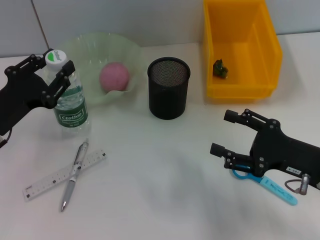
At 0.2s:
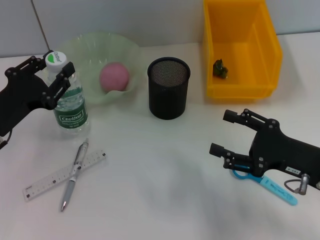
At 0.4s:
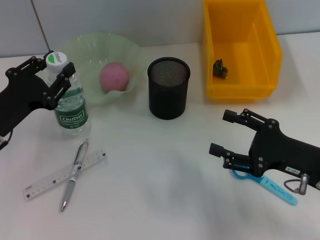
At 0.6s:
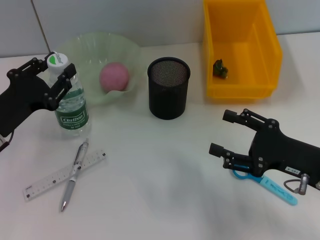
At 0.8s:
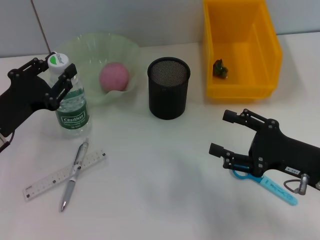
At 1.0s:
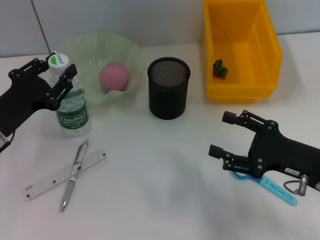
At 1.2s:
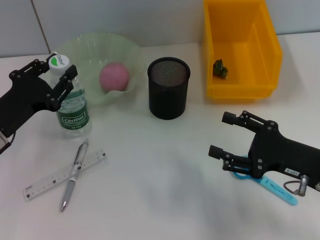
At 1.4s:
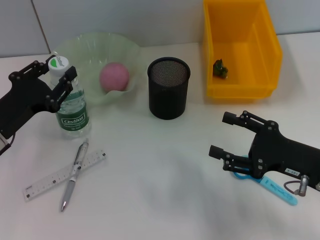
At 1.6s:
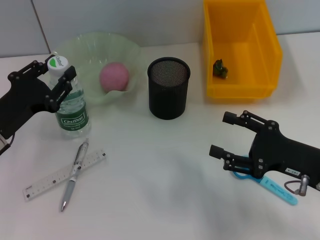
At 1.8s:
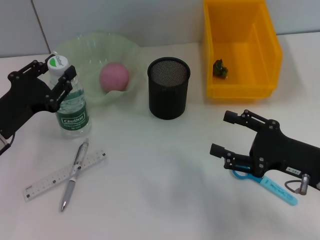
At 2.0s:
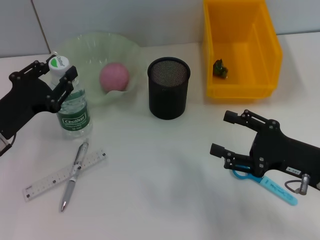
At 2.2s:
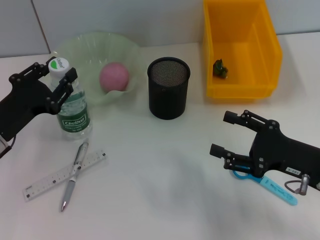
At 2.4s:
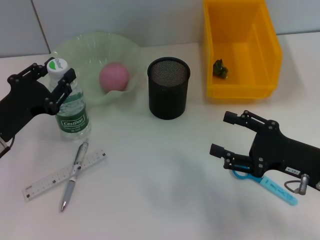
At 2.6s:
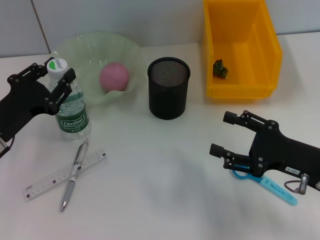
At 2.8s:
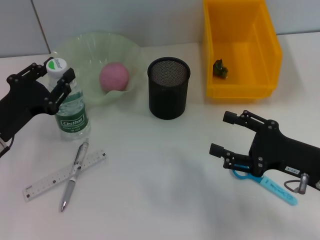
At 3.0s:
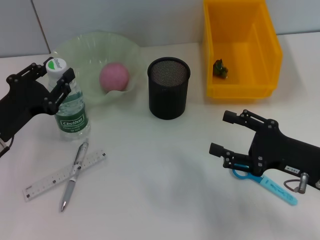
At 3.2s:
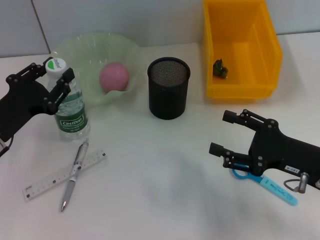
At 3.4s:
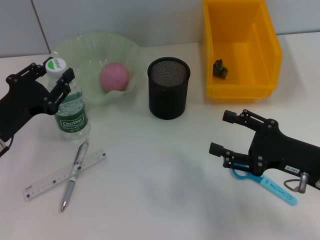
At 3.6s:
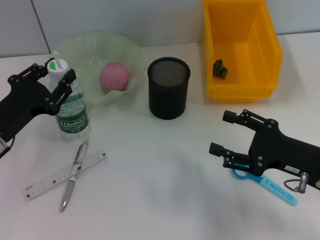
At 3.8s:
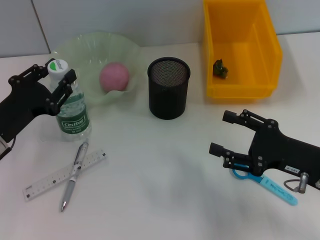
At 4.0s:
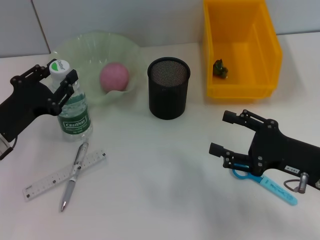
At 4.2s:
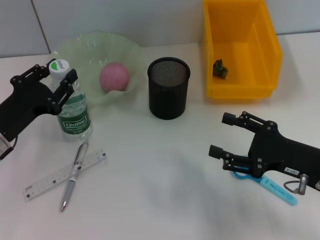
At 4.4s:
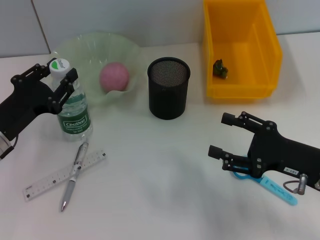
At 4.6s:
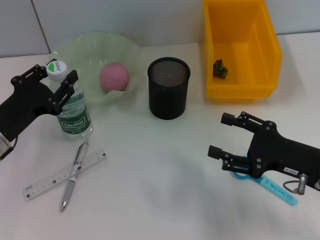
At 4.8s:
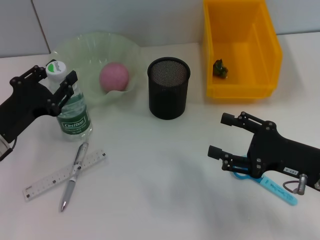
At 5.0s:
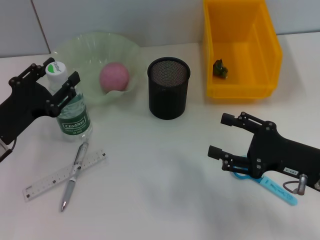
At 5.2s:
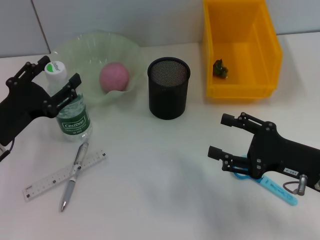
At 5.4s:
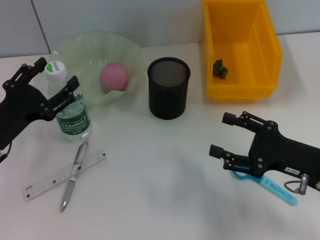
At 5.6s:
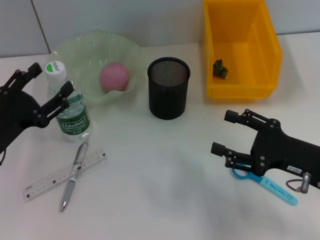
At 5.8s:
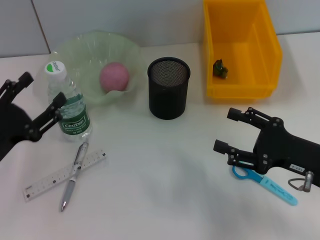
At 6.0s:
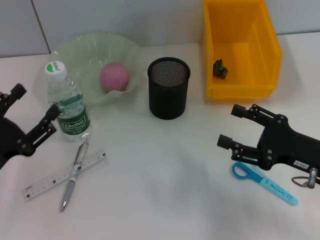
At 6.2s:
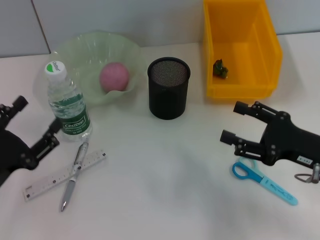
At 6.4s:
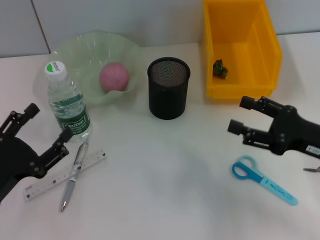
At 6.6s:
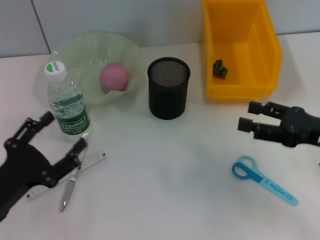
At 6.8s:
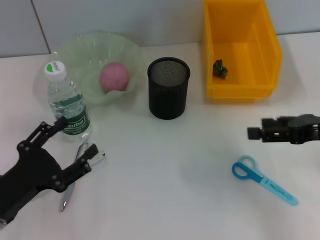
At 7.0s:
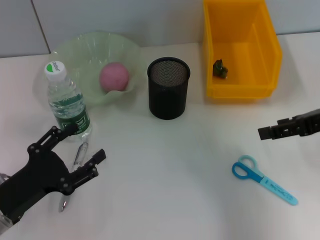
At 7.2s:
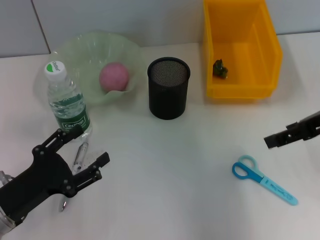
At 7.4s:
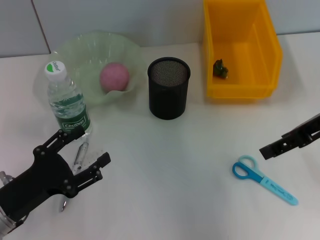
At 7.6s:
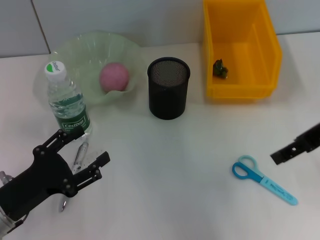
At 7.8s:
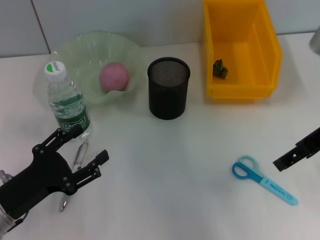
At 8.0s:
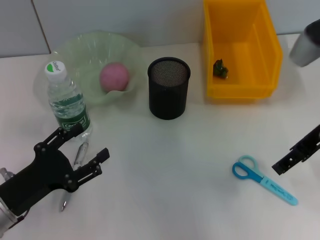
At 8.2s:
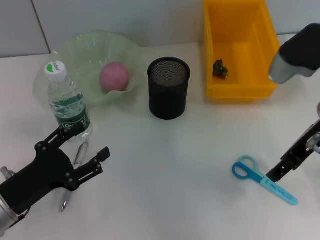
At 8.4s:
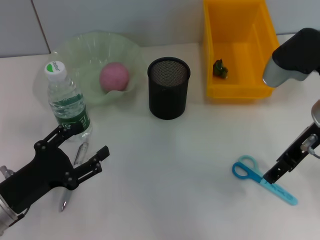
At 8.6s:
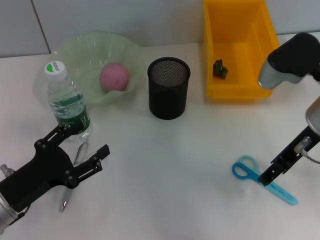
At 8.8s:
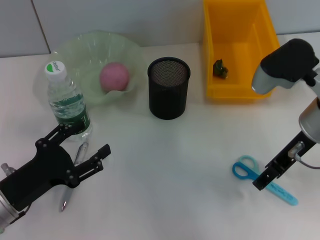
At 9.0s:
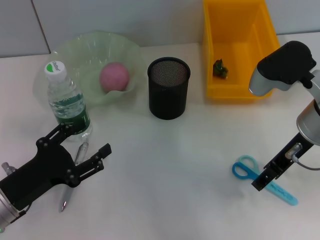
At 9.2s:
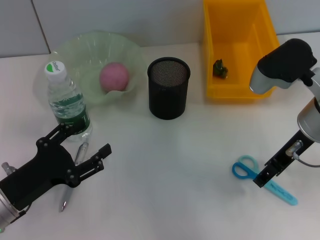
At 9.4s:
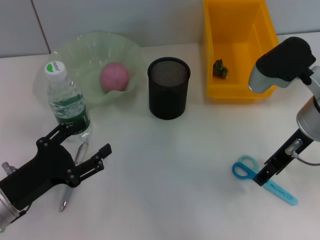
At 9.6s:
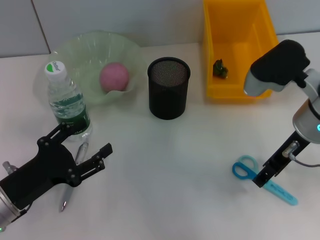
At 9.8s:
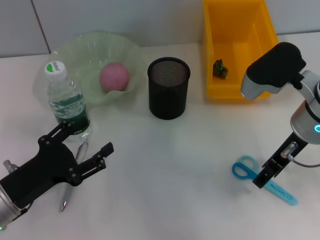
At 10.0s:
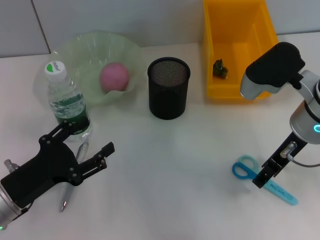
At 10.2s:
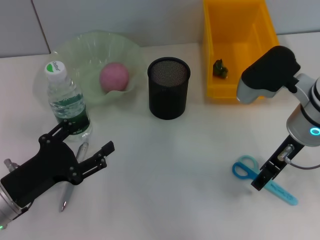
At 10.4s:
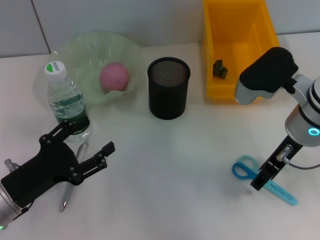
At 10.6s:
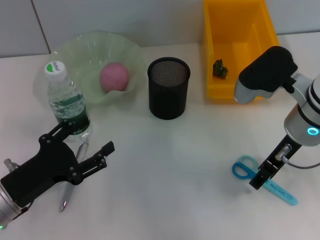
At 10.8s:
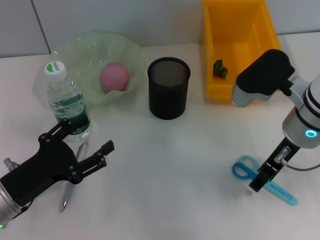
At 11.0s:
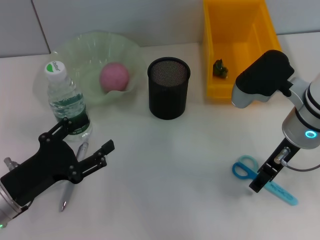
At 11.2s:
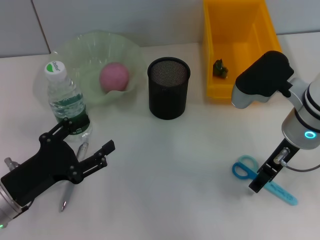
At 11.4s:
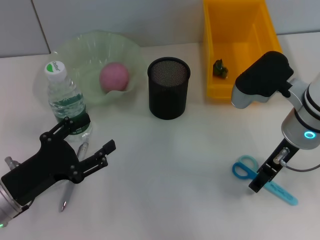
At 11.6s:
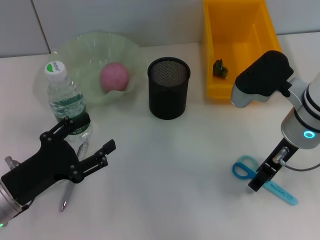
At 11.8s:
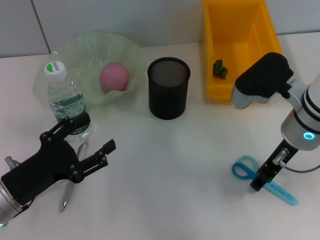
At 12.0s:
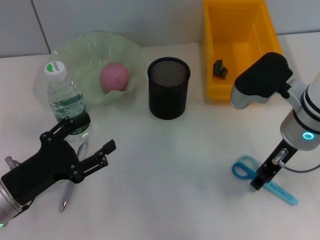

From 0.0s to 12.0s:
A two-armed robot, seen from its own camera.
Step, from 0.0s to 5.4s: Place the water bottle on the table with the left hand.
From 0.0s to 3.0s: The two grippers keep their place.
From 3.0s to 4.4s: Both grippers stay put.
From 4.4s to 6.0s: The left gripper travels backward by approximately 10 cm, and opens its fingers.
From 6.0s to 7.6s: The right gripper shifts approximately 15 cm upward.
From 7.6s to 9.0s: The right gripper goes approximately 10 cm downward and to the left.
From 9.0s to 10.4s: The grippers make only small movements.
From 10.4s to 12.0s: Both grippers stay about where they are.

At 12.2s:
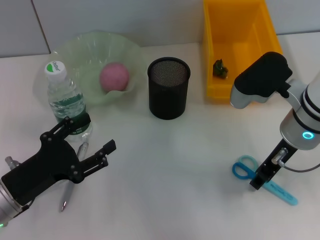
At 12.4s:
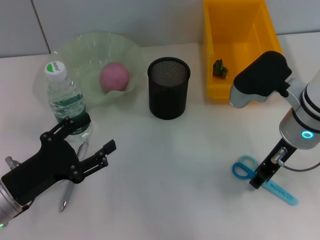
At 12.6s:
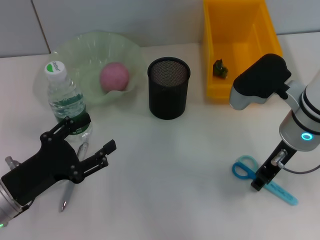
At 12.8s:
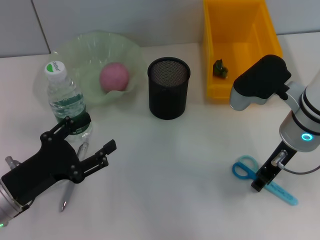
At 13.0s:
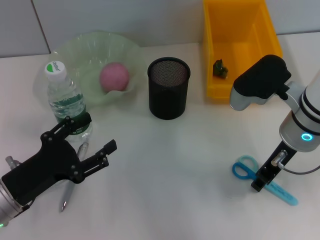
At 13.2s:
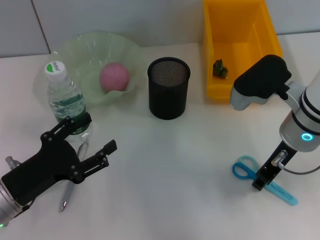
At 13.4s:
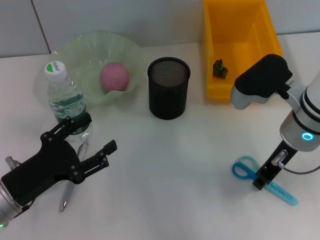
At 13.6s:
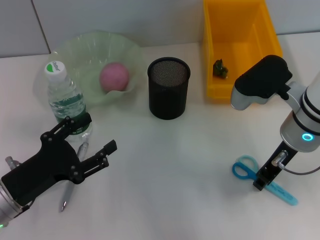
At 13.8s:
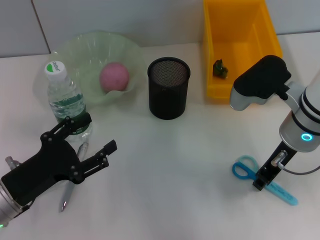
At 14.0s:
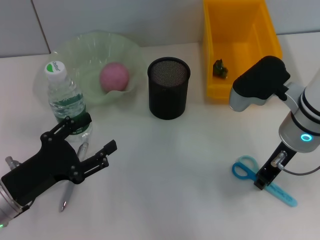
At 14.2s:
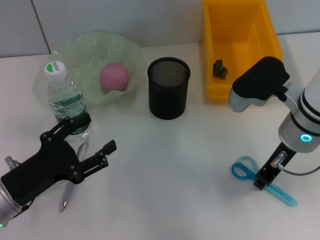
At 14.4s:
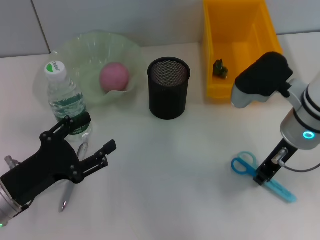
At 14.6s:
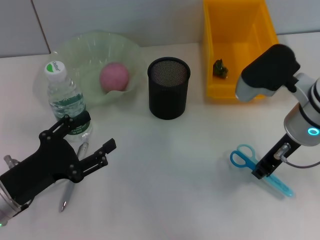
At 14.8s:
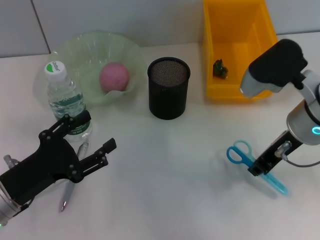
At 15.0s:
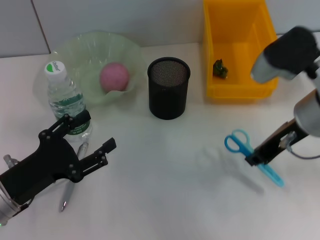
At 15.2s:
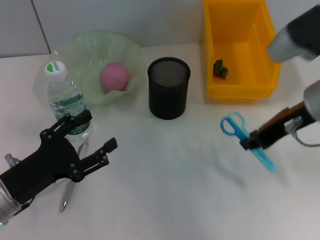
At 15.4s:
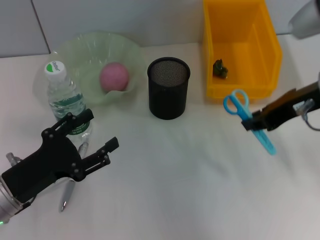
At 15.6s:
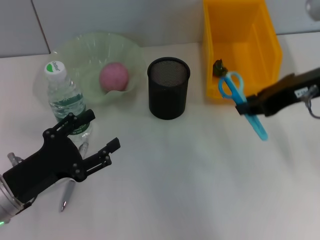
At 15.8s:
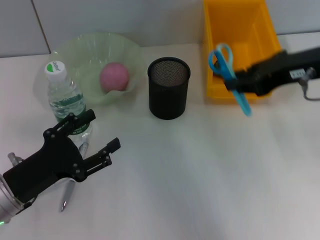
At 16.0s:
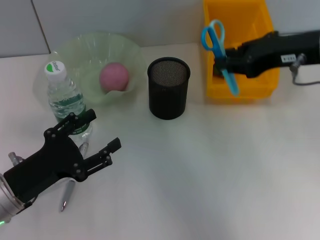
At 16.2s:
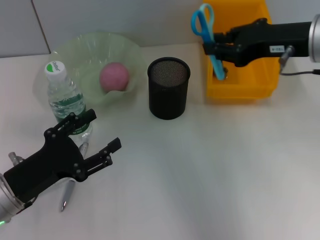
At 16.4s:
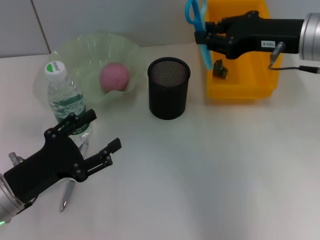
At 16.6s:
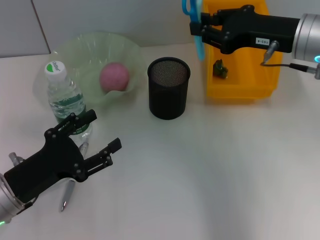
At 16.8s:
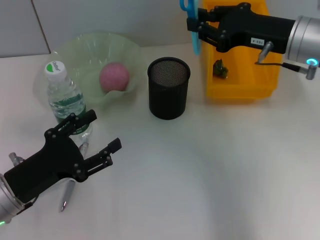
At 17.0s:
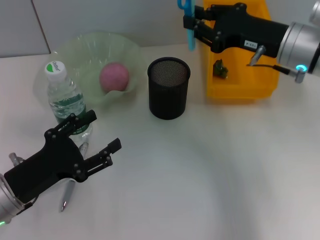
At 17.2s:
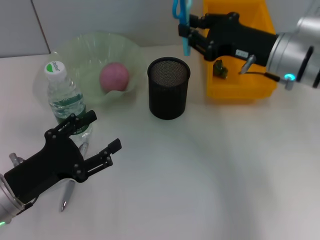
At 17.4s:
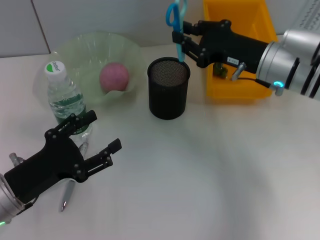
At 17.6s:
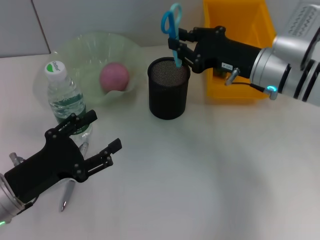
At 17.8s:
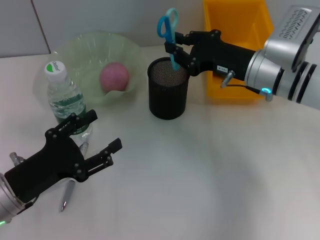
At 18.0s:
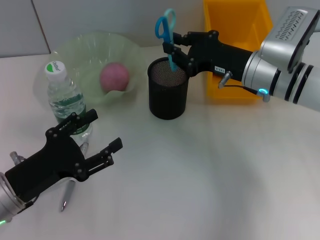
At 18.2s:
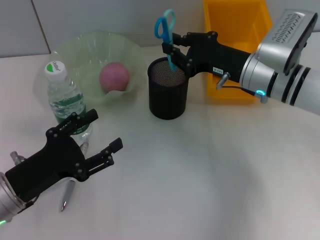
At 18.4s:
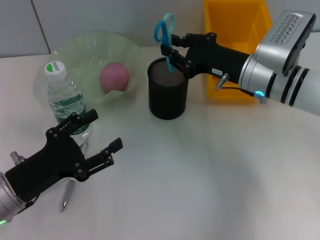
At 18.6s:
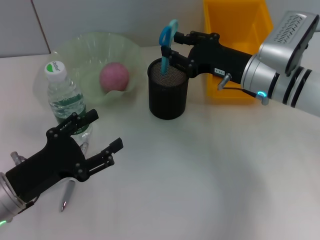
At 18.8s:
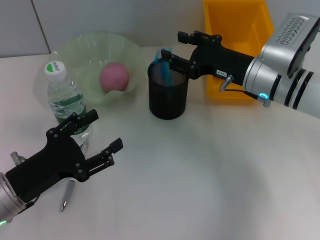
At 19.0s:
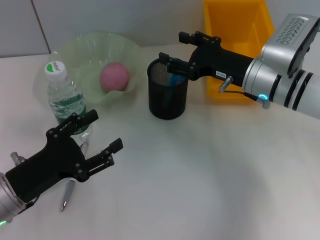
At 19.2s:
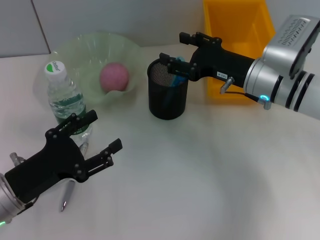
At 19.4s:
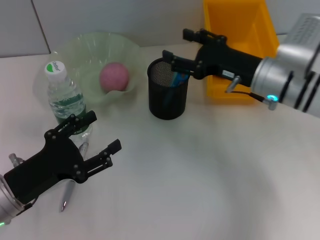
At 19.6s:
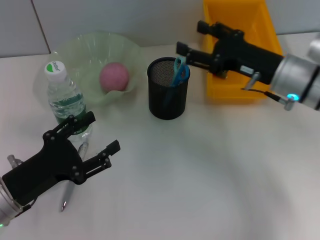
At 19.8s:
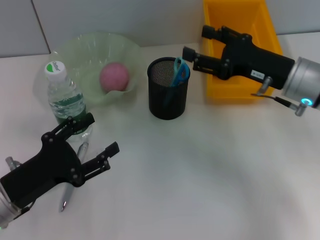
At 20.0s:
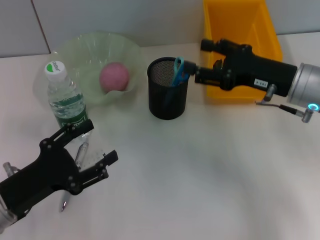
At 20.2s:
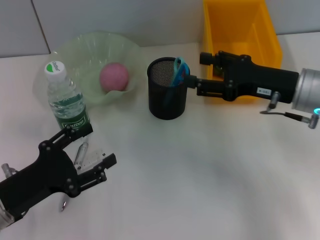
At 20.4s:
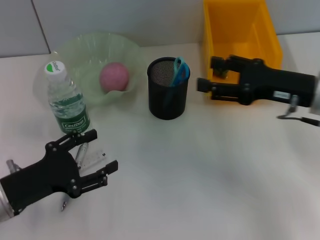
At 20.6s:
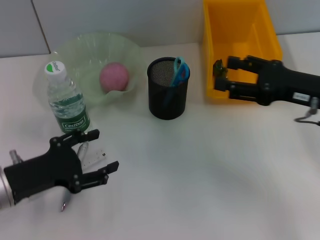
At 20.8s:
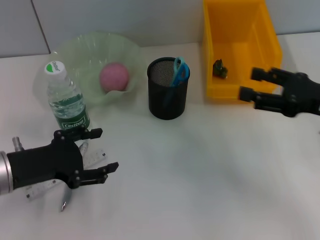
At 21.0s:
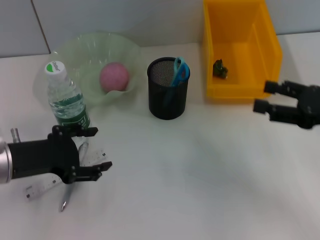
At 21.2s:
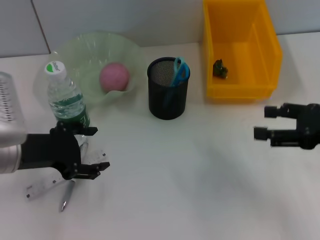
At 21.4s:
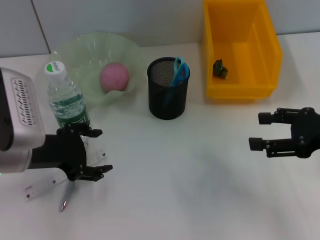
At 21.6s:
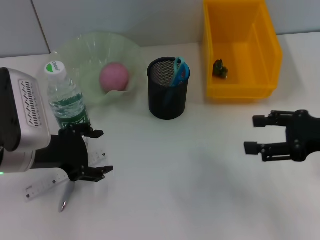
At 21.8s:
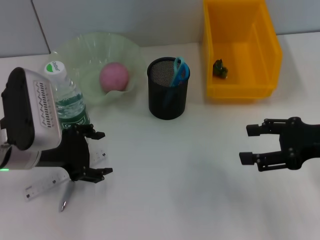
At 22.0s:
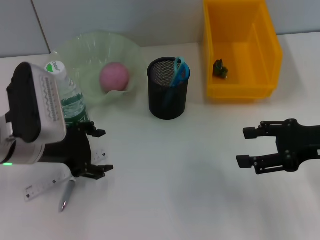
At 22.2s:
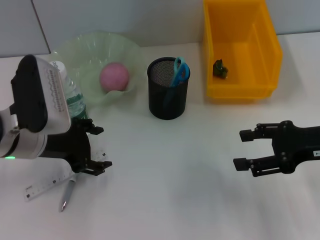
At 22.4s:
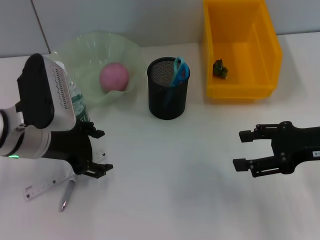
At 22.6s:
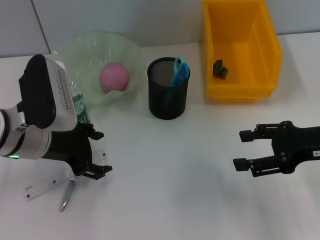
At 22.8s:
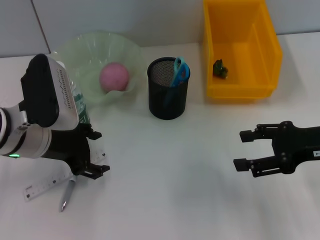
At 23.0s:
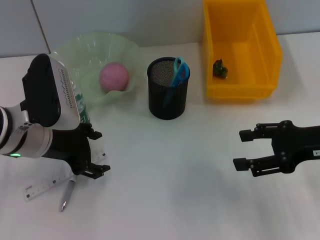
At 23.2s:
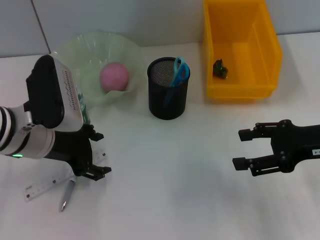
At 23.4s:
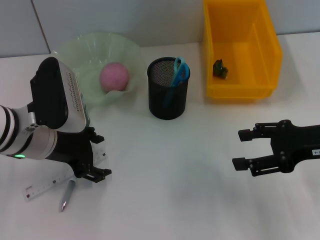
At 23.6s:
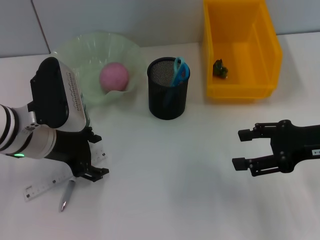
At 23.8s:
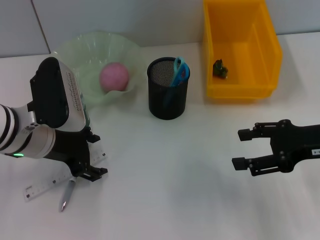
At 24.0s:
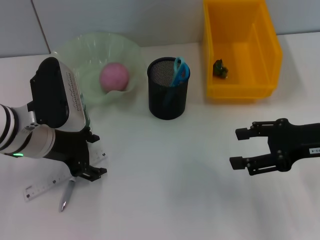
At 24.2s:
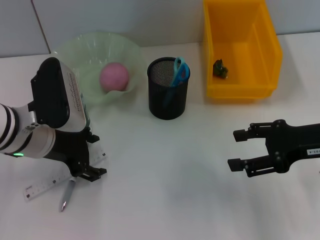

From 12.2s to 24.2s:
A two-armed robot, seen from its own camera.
Step, from 12.2s to 14.2s: Grab the blue scissors with the right hand.
Step, from 14.4s to 19.4s: Place the blue scissors into the pen holder with the right hand.
From 12.2s to 13.8s: The right gripper closes up.
From 13.8s to 15.2s: The right gripper goes approximately 5 cm upward.
From 16.6s to 18.2s: The right gripper shifts about 10 cm downward.
From 18.2s to 19.8s: The right gripper shifts by approximately 5 cm, and opens.
From 19.8s to 21.2s: The left gripper heads upward and forward, covering roughly 10 cm. The right gripper is displaced to the right and backward by some 10 cm.
From 21.2s to 24.2s: There are only small adjustments of the grippers.
